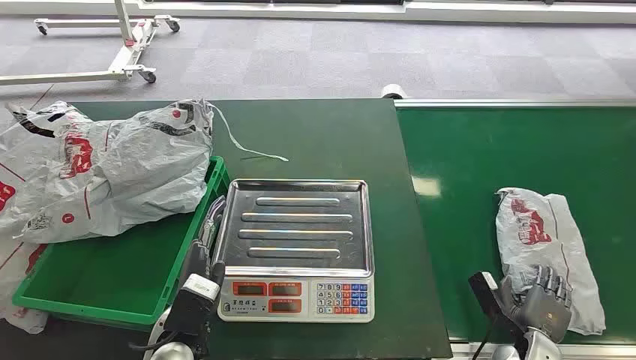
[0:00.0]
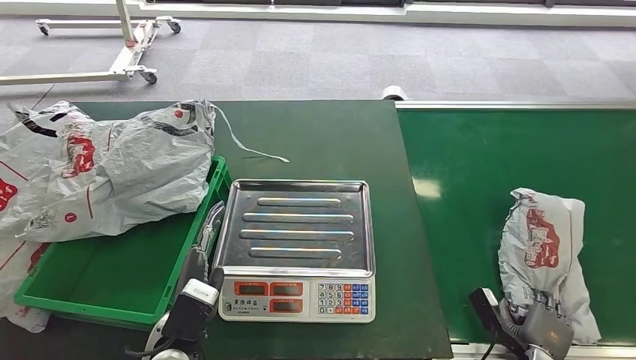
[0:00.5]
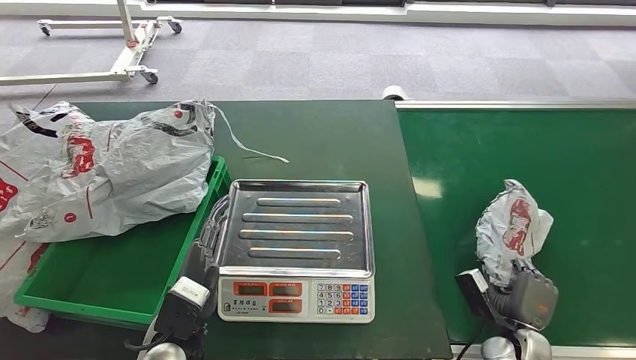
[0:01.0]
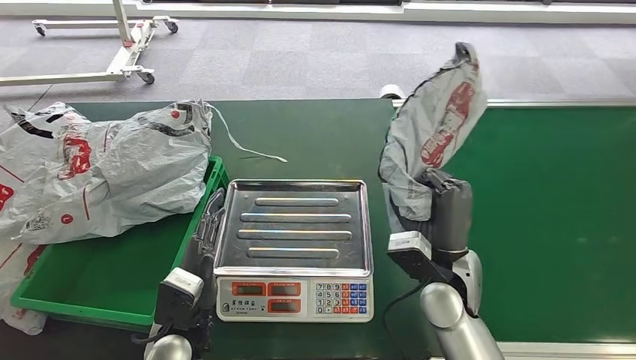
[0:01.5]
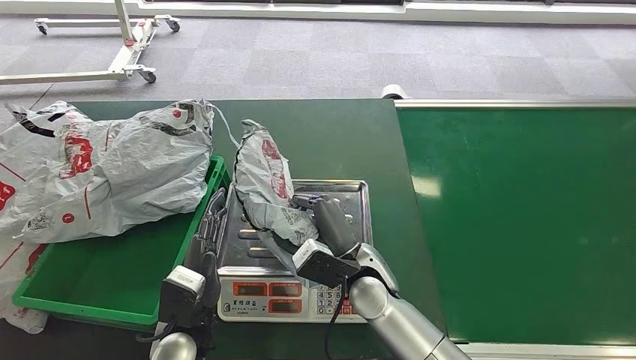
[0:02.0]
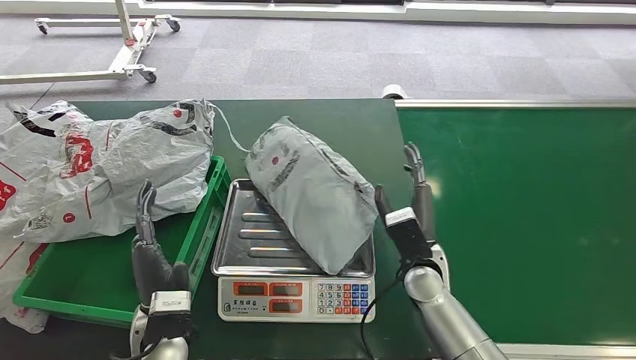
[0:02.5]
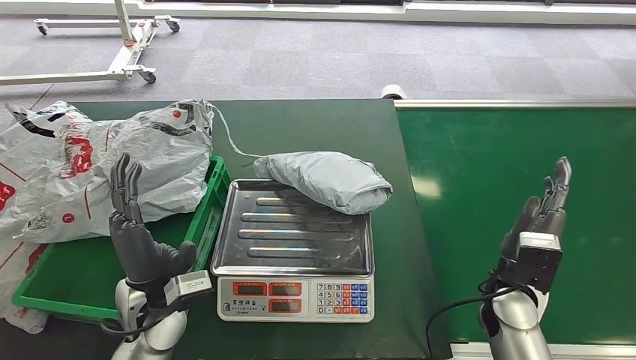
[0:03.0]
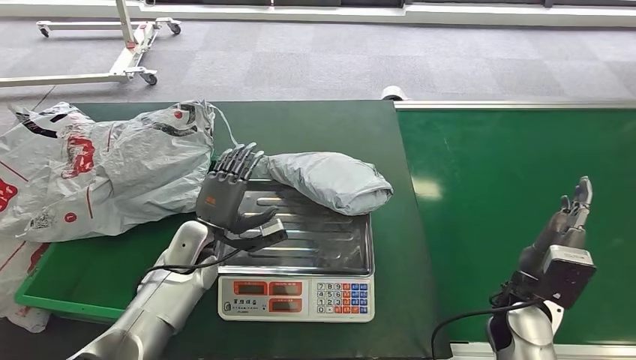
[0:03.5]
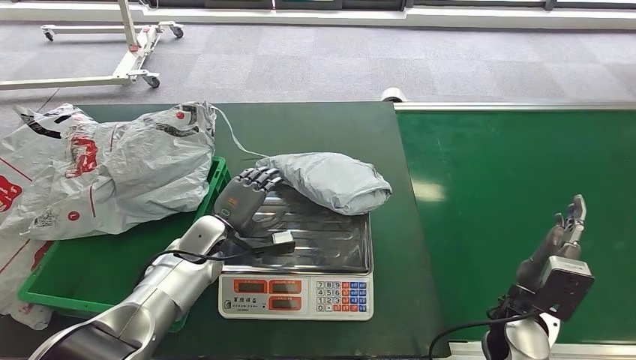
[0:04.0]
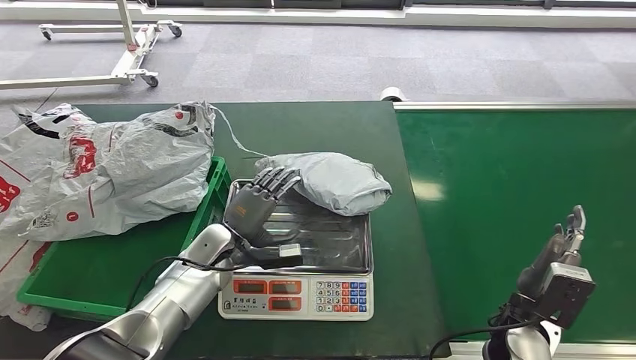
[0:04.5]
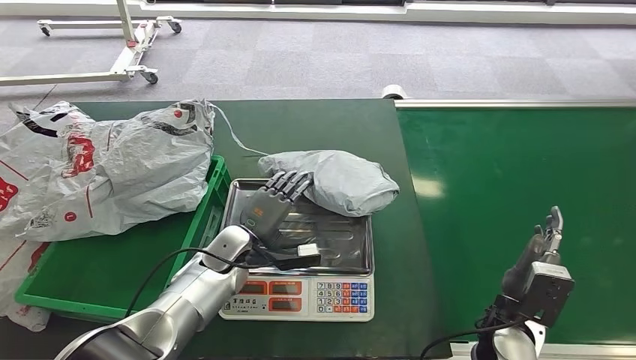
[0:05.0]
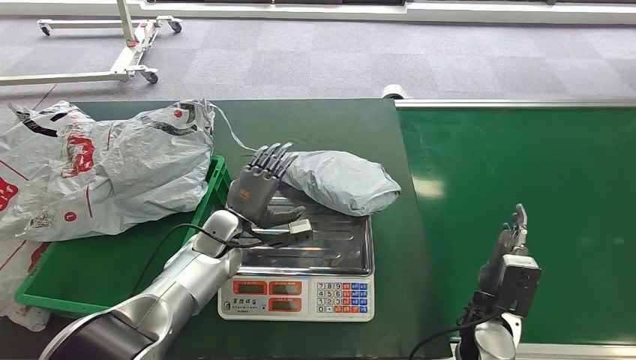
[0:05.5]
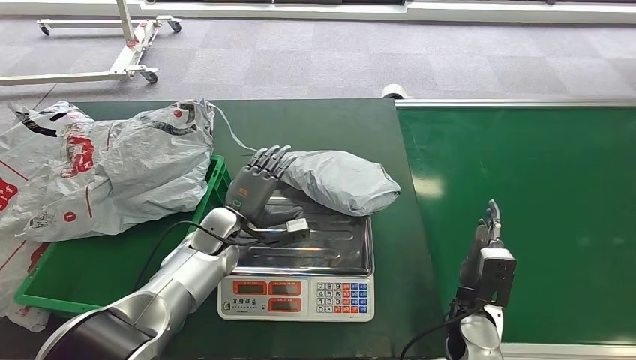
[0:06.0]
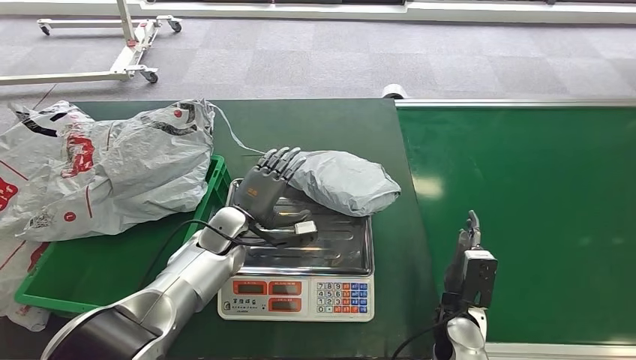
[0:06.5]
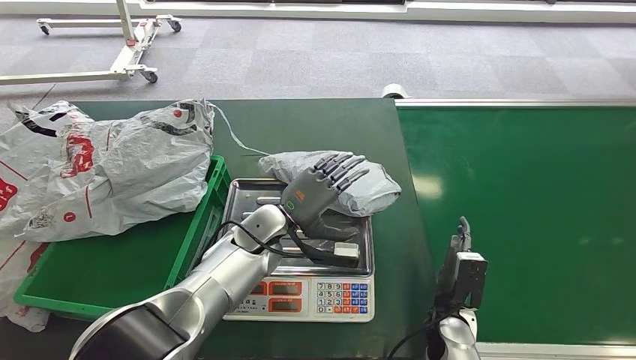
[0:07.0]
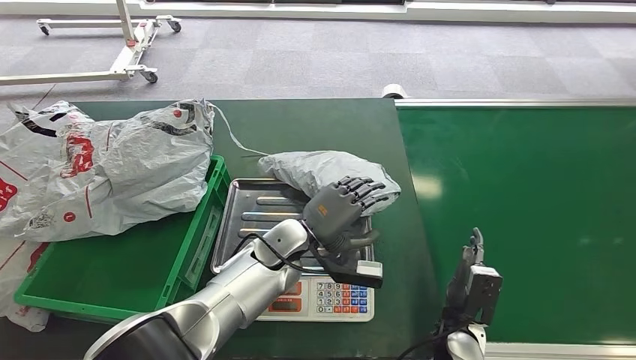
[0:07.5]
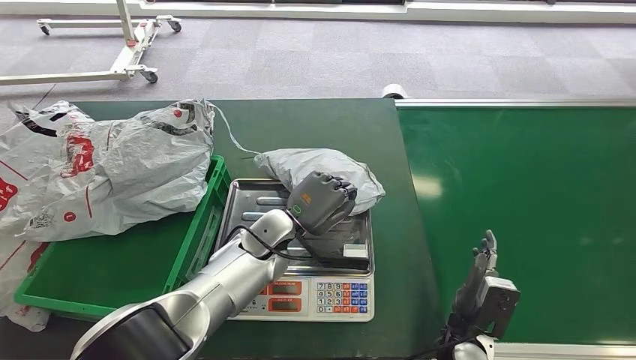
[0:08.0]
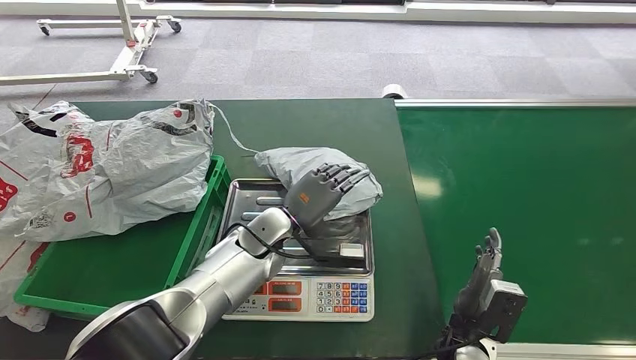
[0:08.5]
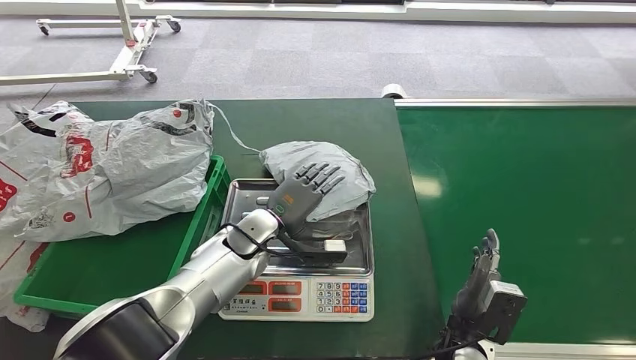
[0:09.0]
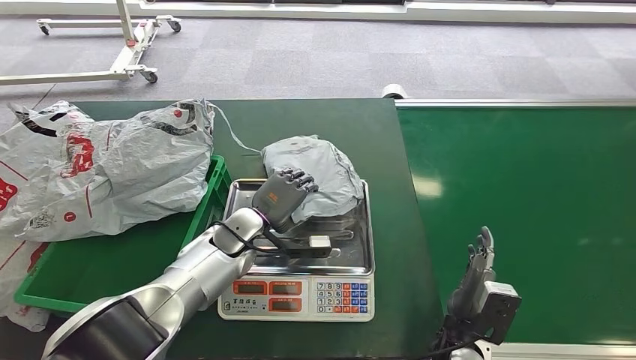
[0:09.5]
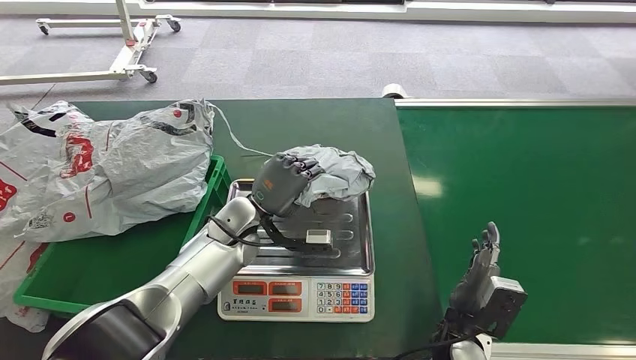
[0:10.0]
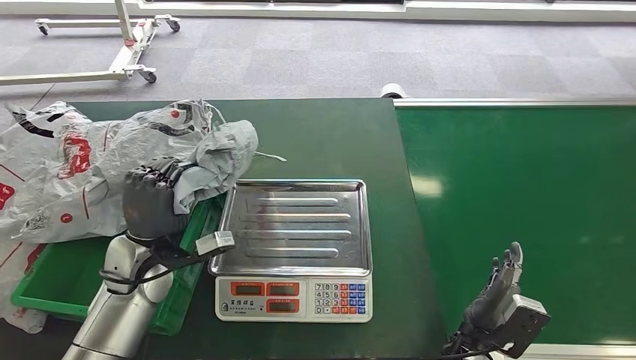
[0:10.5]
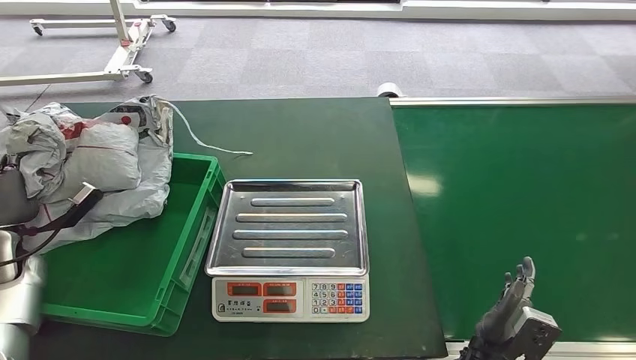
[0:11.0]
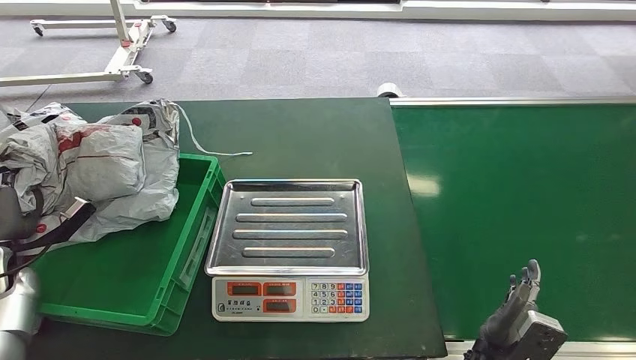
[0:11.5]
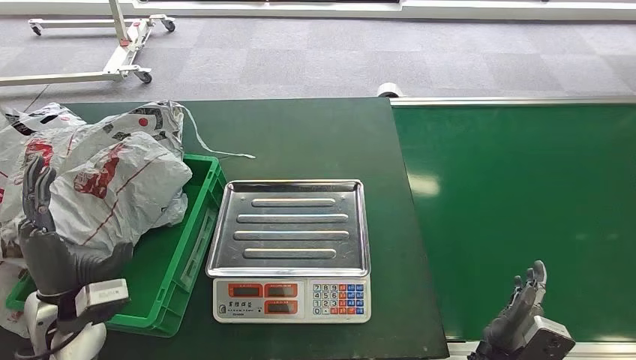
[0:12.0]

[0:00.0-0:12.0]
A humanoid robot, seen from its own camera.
Step, 0:00.0 to 0:01.0: Pick up the package from the conveyor belt.
Step, 0:01.5 to 0:02.5: Place the package onto the inbound machine.
Step, 0:09.5 to 0:10.0: Pick up the package from the inbound machine.
Step, 0:10.5 to 0:12.0: Place the package into the parcel locker.
0:06.0 to 0:08.0: The right hand changes place by about 5 cm. The left hand travels to the right by roughly 10 cm.
0:08.0 to 0:10.0: The left hand heads to the left, covering roughly 5 cm.
